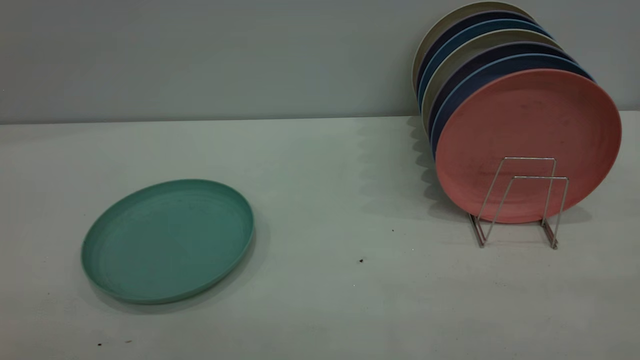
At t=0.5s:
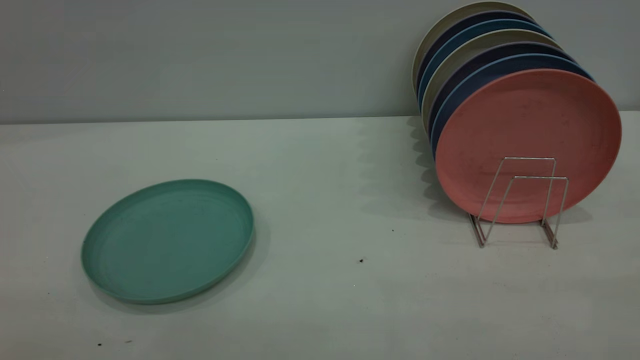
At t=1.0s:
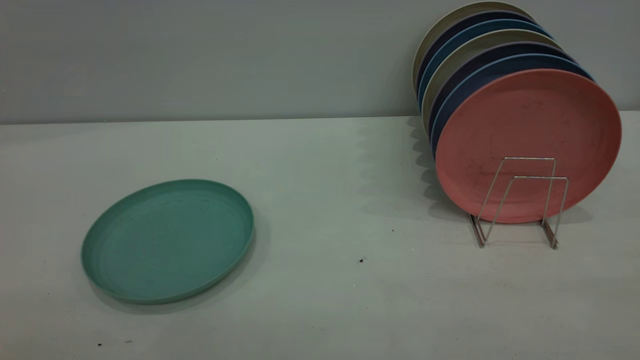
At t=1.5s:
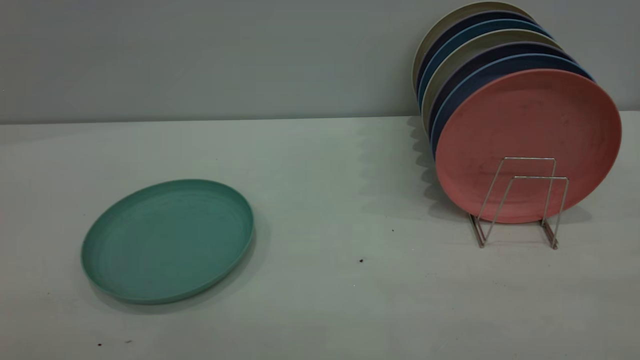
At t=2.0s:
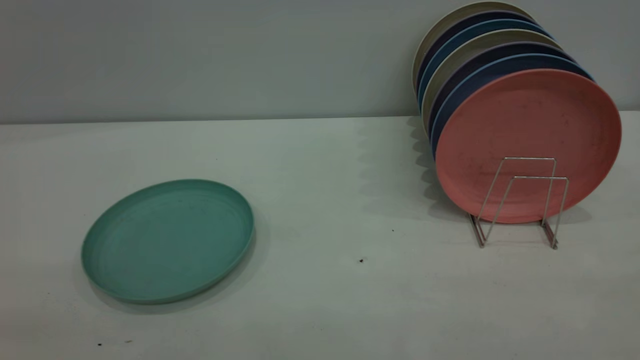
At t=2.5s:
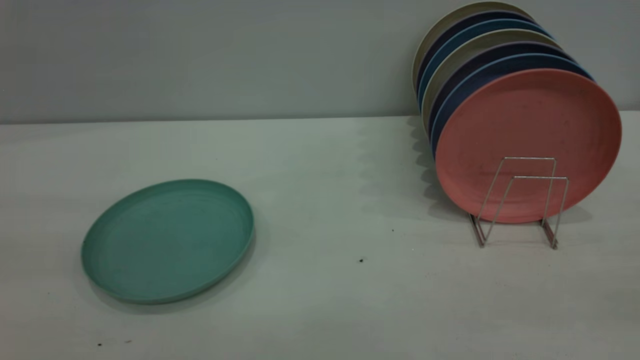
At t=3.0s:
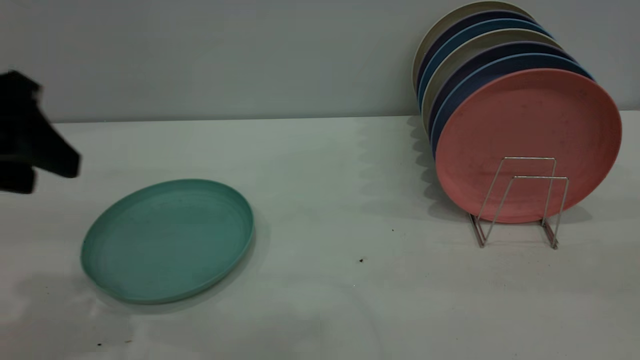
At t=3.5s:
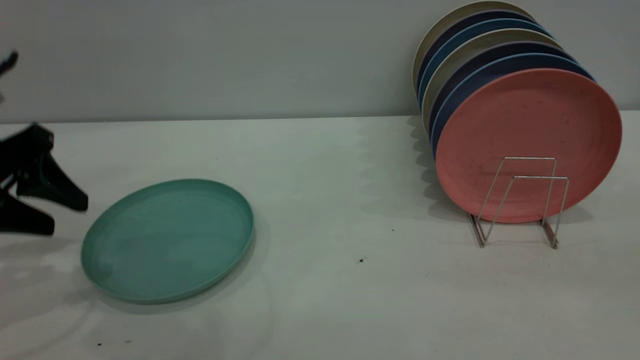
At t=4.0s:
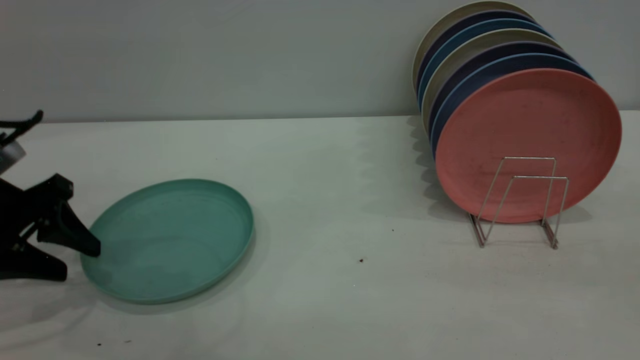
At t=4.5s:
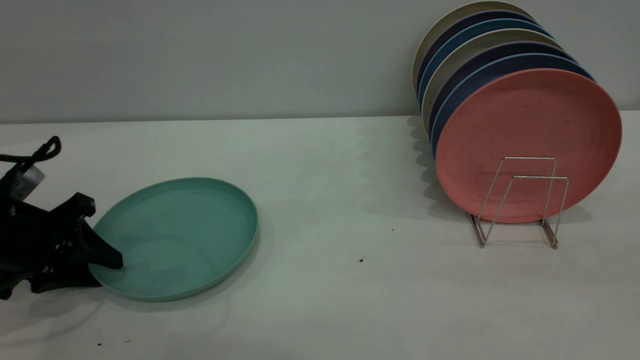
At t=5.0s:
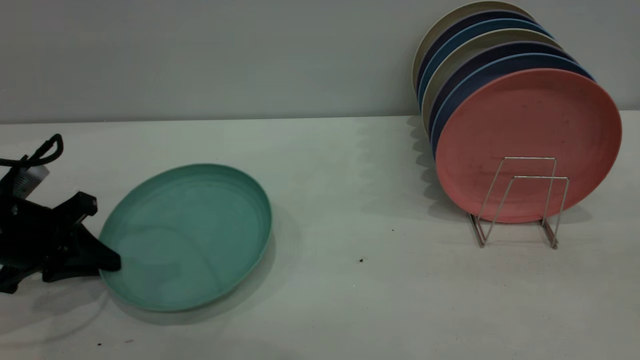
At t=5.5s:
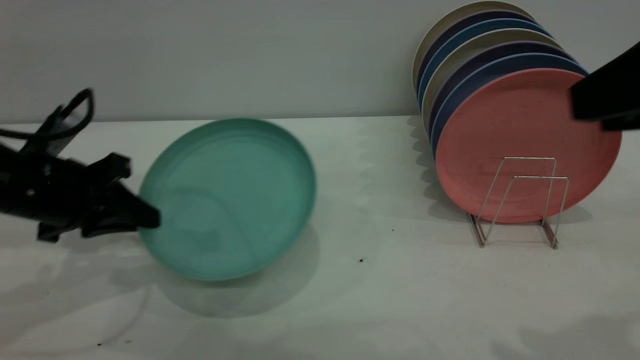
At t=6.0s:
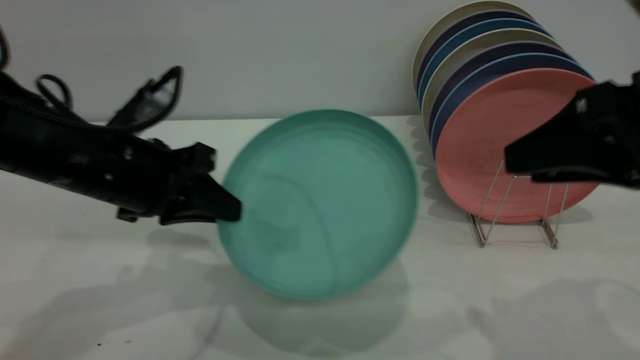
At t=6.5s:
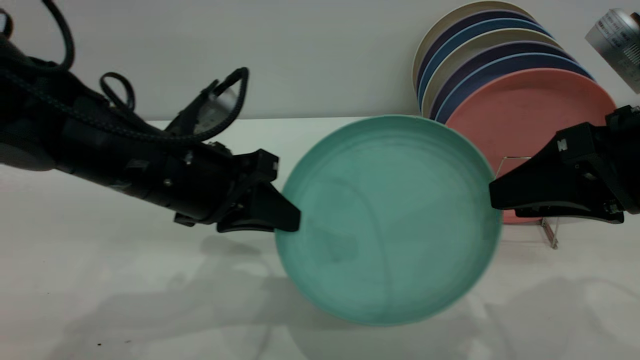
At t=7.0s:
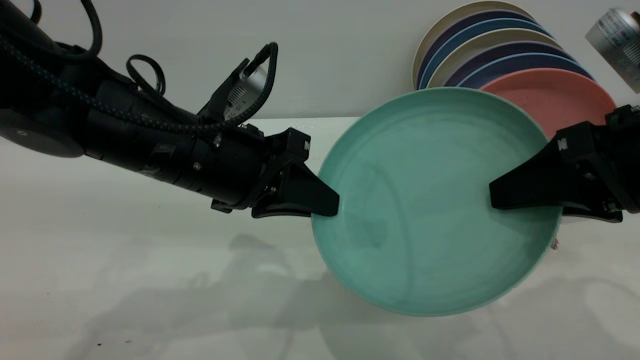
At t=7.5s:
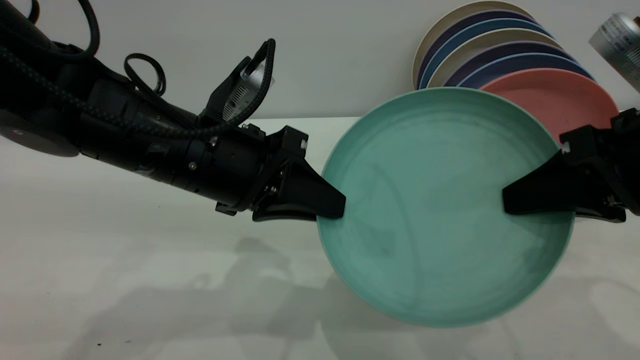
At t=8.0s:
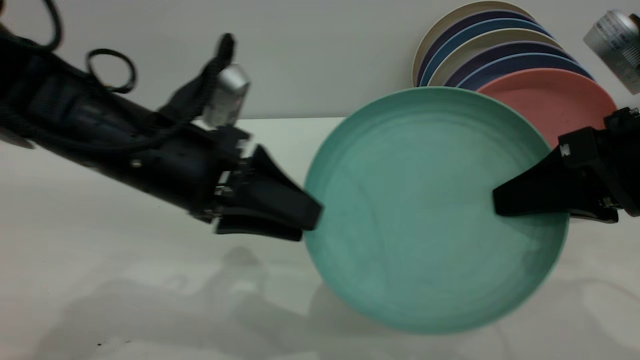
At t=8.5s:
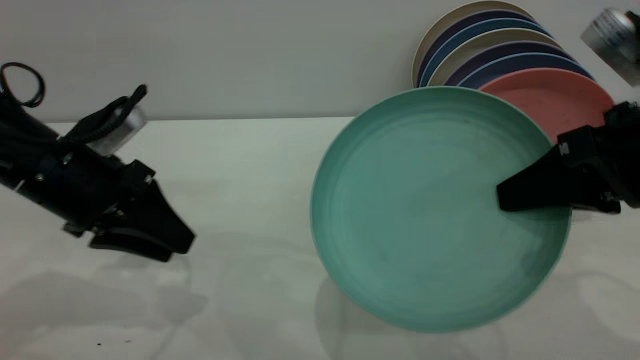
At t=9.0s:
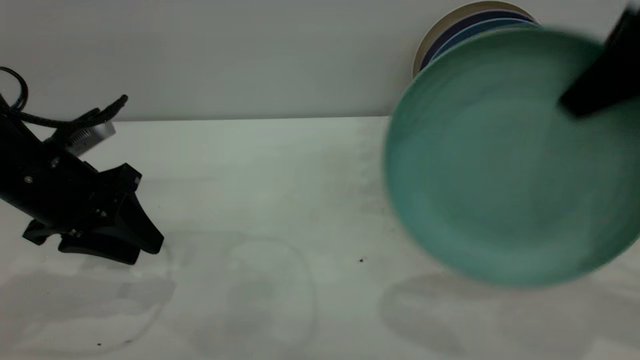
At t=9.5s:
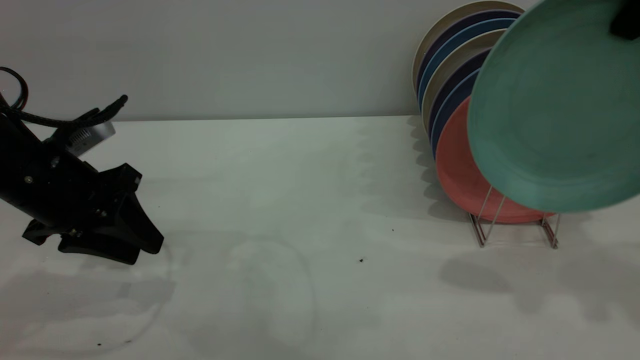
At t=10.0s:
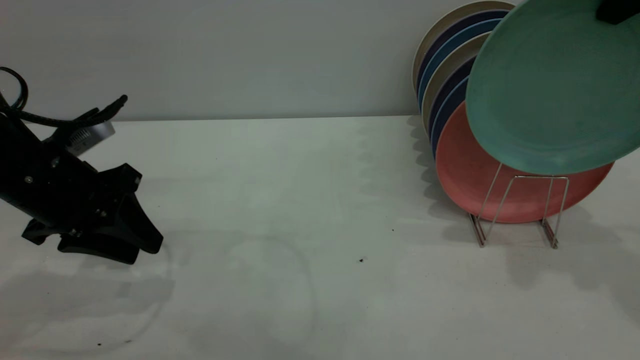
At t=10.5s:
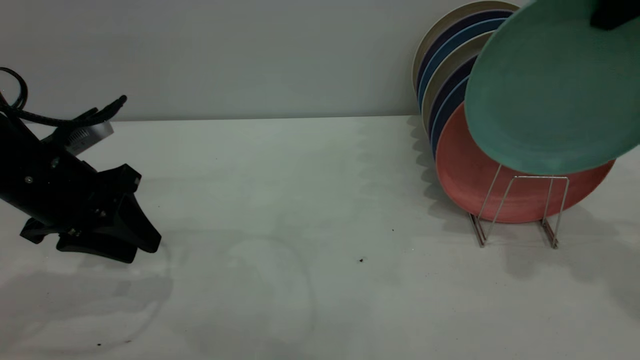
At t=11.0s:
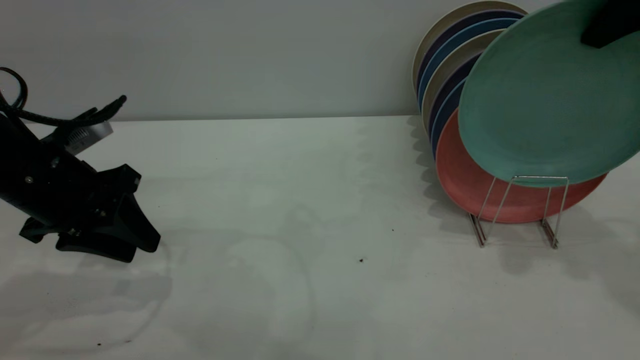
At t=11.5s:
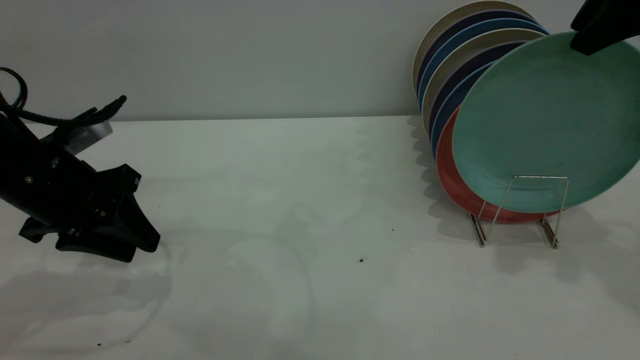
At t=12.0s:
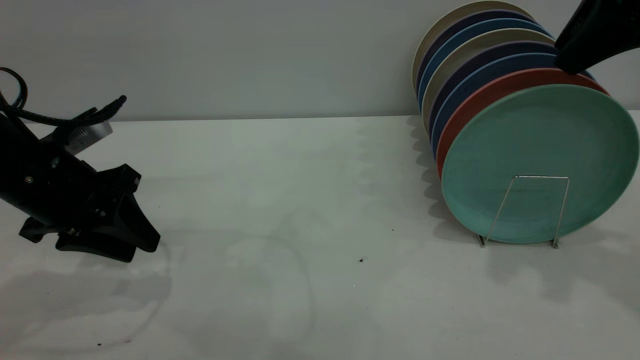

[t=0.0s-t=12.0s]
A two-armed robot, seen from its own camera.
Task of the whole recording: the left gripper grasp the green plate, the left gripper pass the green plate to the right gripper, and the right gripper place the green plate on the plate rack.
Step, t=0.0s to t=4.5s: Pick up the plate with the left gripper.
Step, t=5.0s to t=8.0s: Pass the plate from the left gripper to the right gripper.
t=2.0s to t=4.0s: The left gripper is displaced forward and downward by some 40 cm.
t=4.0s to t=6.0s: The left gripper shifts about 15 cm to the right, and closes, while the right gripper goes roughly 20 cm forward and downward.
t=6.0s to t=8.0s: The left gripper opens its fingers. The right gripper closes.
t=8.0s to t=10.0s: The left gripper is displaced to the left by roughly 10 cm, while the right gripper travels upward and forward by some 20 cm.
t=10.0s to t=12.0s: The right gripper opens its fingers.

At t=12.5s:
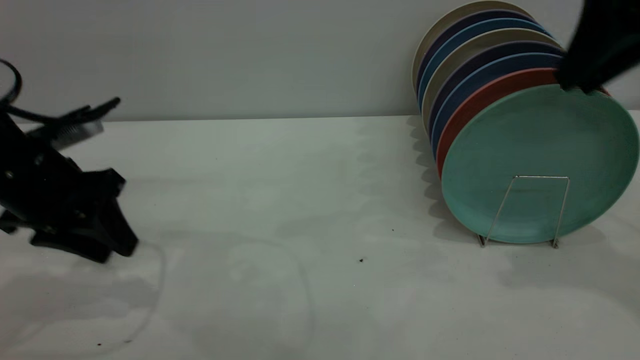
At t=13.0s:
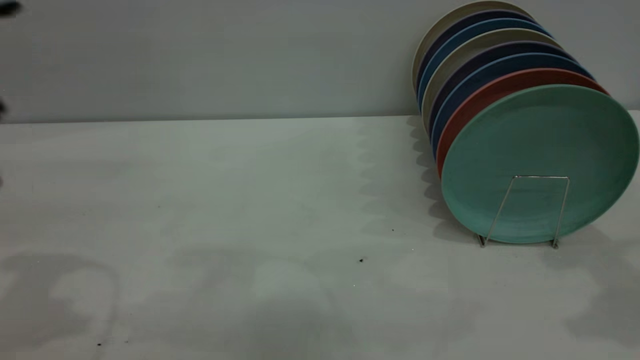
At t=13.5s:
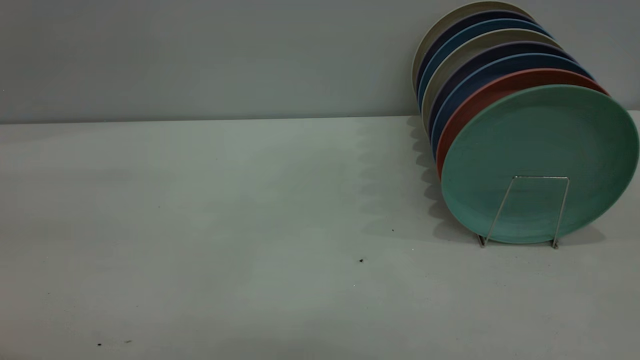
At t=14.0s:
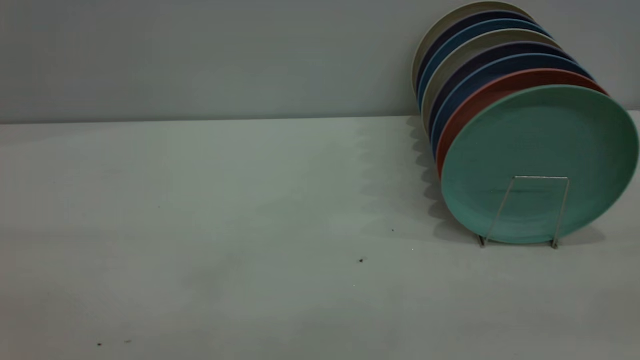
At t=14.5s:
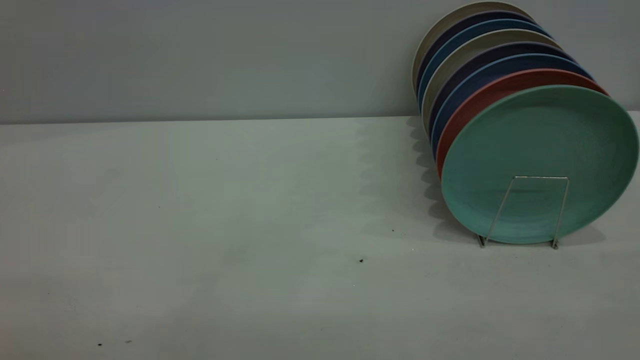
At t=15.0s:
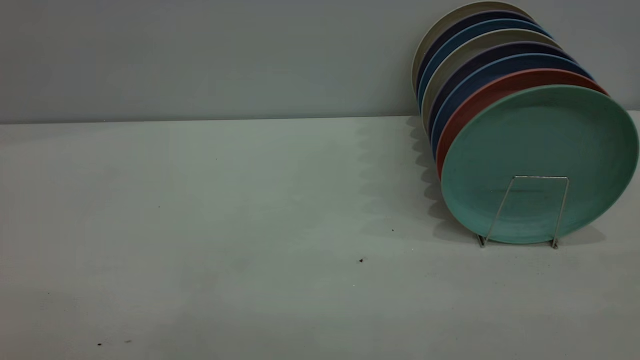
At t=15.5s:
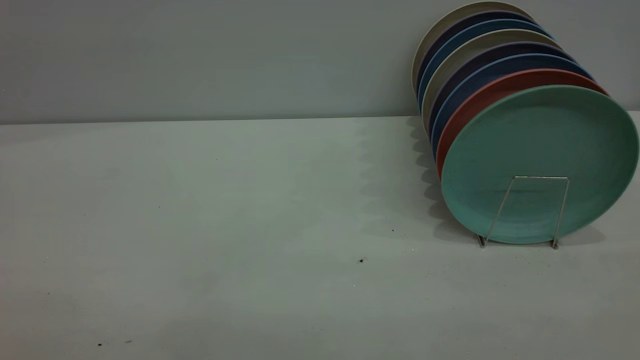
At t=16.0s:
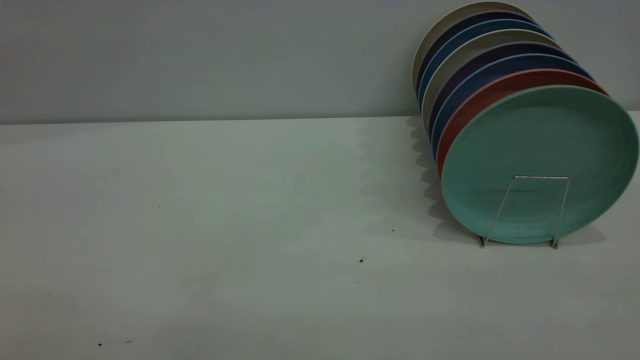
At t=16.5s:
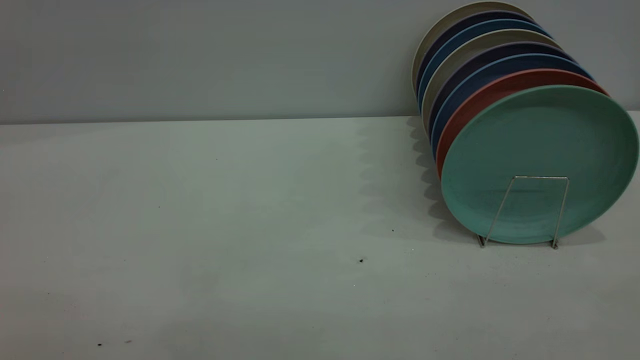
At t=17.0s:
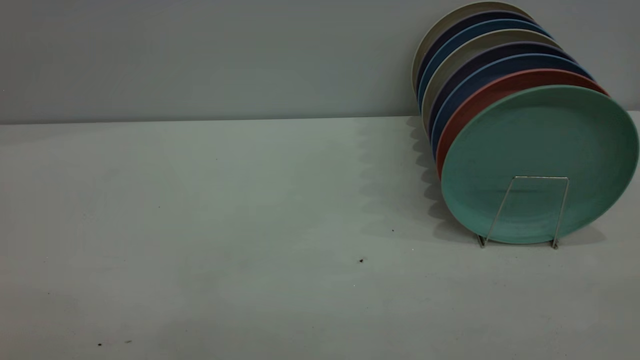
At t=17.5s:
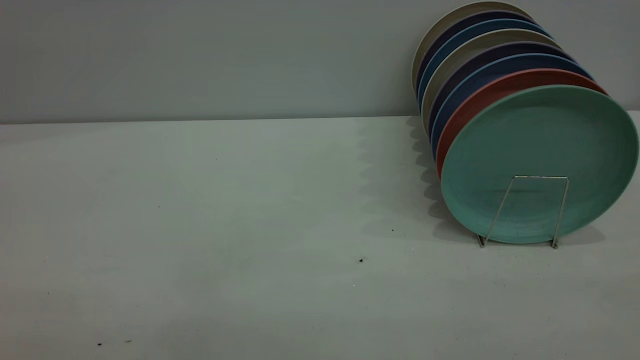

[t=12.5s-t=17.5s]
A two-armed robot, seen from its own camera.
Task of the whole recording: the left gripper grasp the green plate, the left gripper pass the green plate to the right gripper, and the right gripper place the green plate on the plate rack.
t=12.5s to t=15.0s: The right gripper goes some 30 cm backward, while the left gripper shifts about 40 cm backward and upward.
